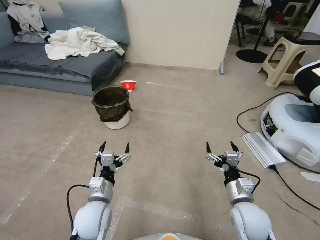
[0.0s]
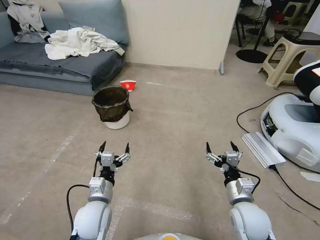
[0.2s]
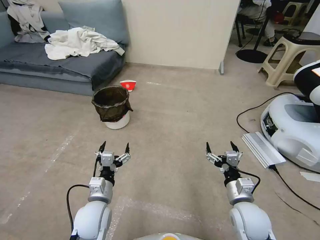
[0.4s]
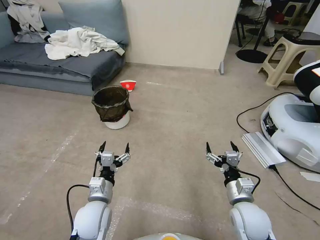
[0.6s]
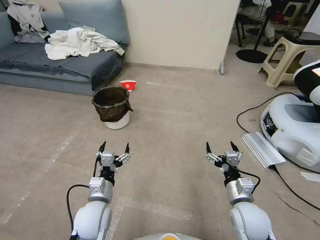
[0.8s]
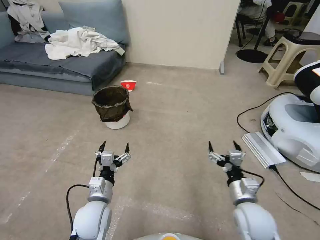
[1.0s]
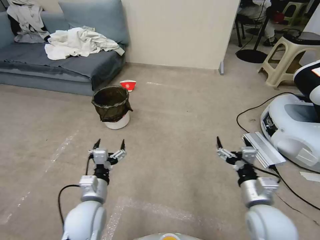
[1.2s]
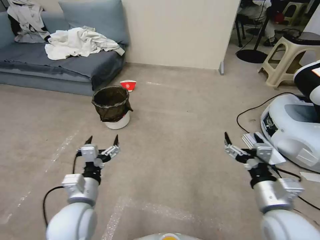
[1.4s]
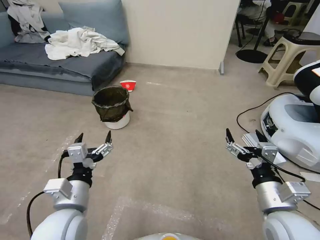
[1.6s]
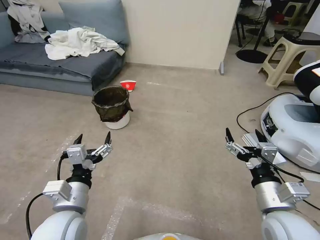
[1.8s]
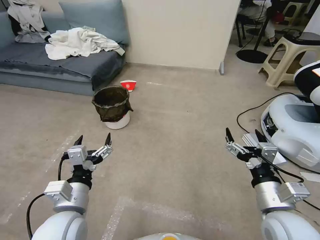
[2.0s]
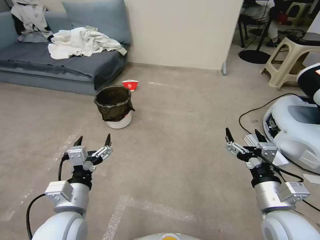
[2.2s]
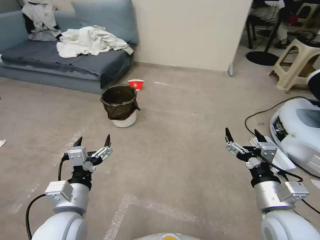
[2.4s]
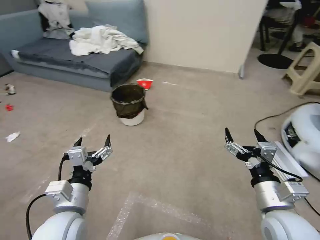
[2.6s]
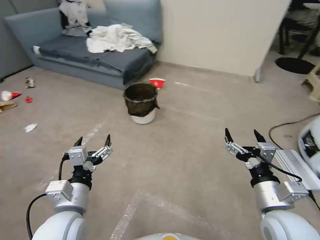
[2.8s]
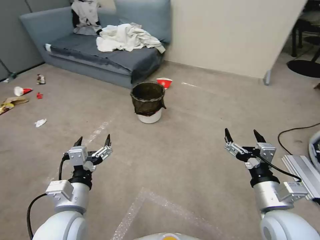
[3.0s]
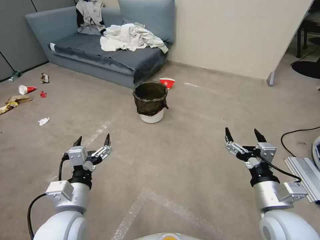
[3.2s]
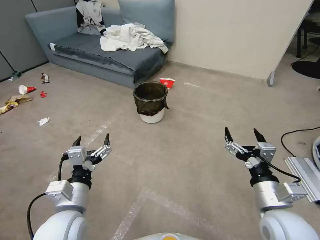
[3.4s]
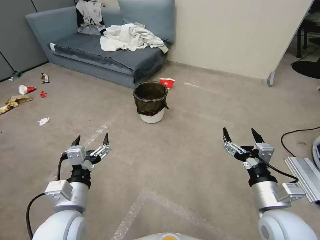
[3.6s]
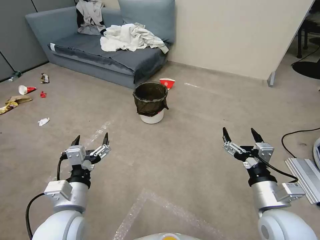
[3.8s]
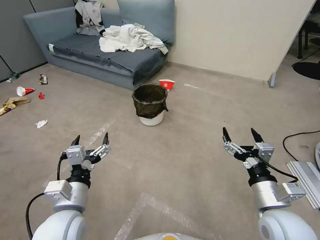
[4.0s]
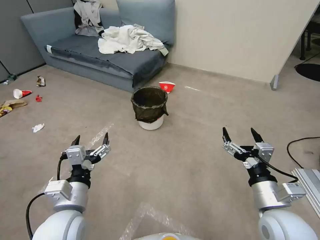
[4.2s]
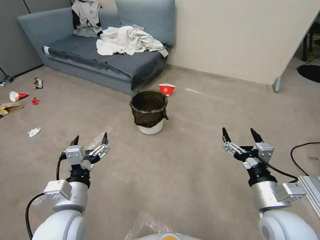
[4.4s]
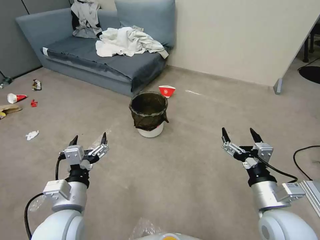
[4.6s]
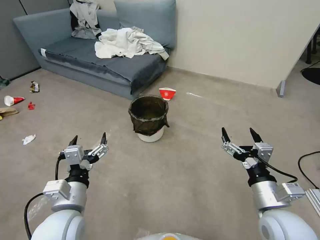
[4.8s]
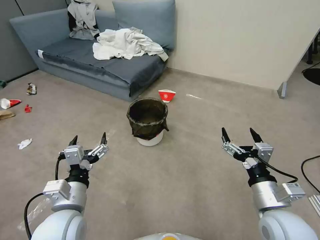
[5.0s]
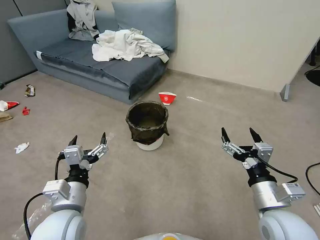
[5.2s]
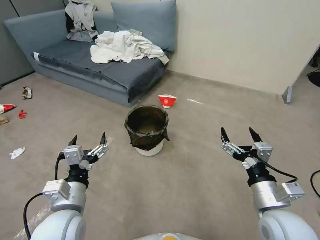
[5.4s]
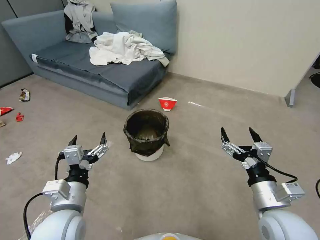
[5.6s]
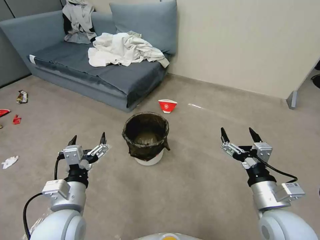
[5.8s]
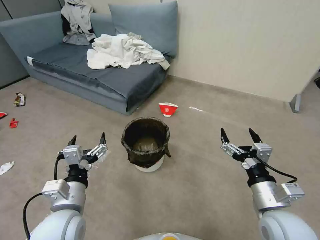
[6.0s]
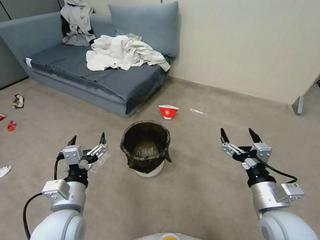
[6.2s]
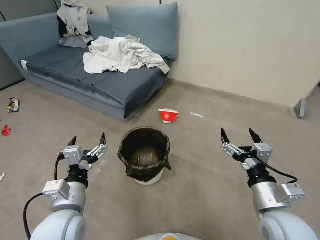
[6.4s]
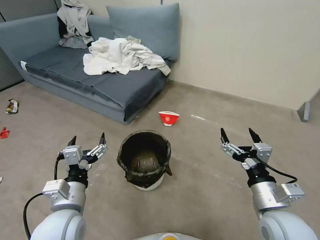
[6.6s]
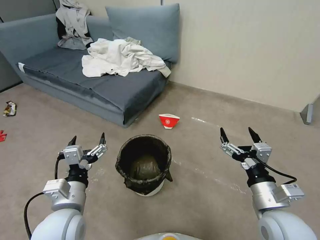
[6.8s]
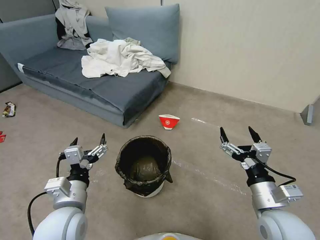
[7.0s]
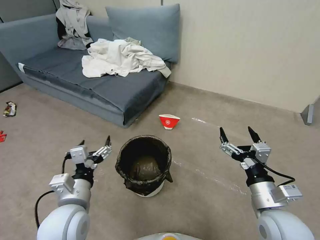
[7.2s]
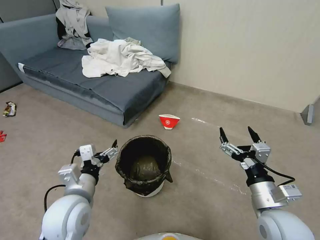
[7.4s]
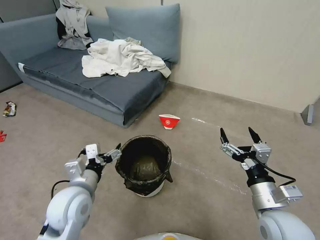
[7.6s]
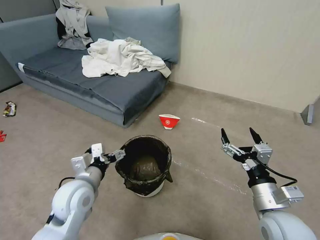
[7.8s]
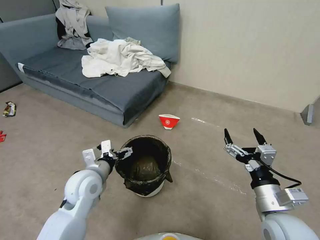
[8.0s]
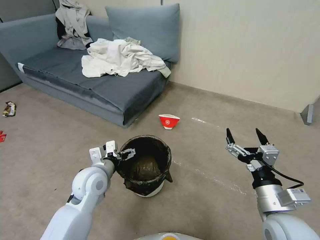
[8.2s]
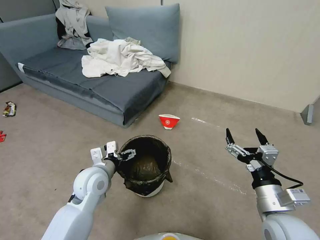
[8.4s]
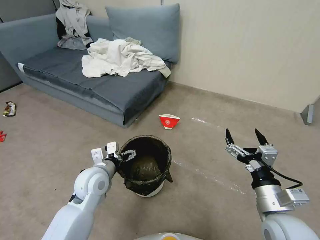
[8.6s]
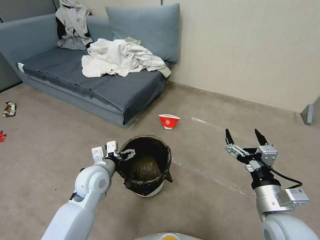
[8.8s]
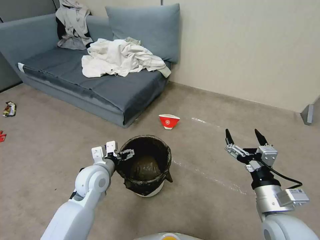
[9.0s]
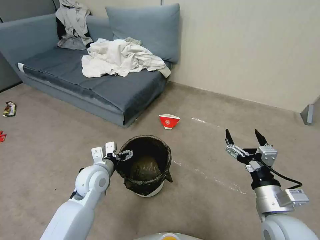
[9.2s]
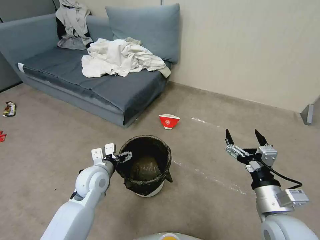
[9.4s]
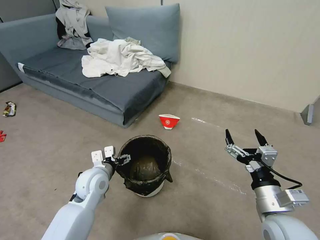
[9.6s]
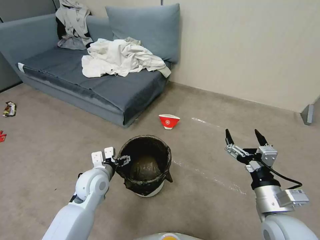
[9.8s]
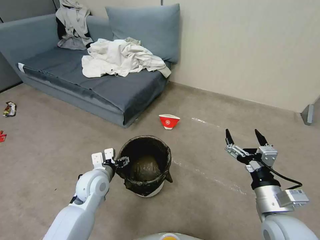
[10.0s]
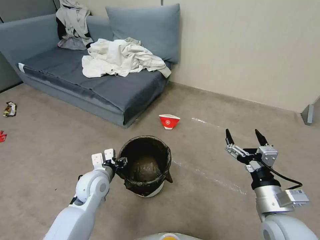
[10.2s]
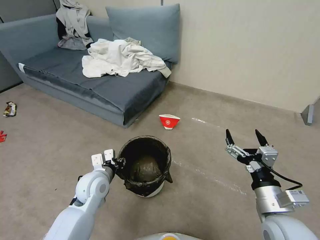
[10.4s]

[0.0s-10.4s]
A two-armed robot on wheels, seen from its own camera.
Task of the whole recording: Pick up the trash can from the floor.
3.0s to 4.4s: The two grippers keep their place.
7.4s to 9.0s: The left gripper is displaced forward and downward by about 10 cm.
9.0s to 10.4s: The left gripper closes up.

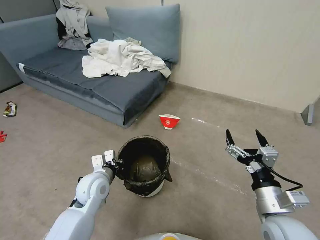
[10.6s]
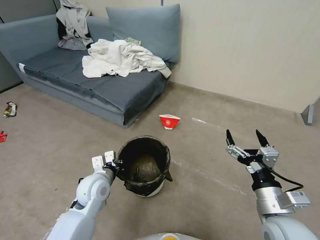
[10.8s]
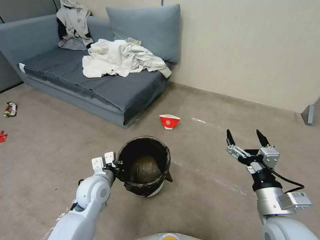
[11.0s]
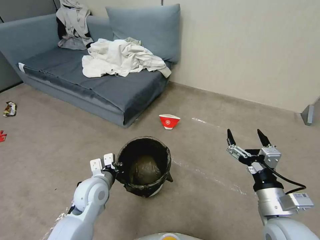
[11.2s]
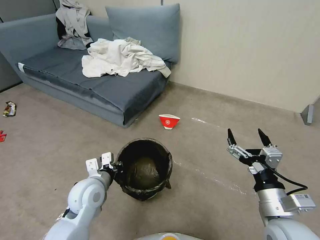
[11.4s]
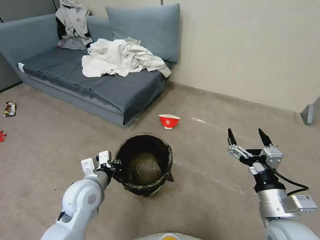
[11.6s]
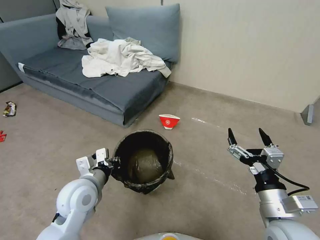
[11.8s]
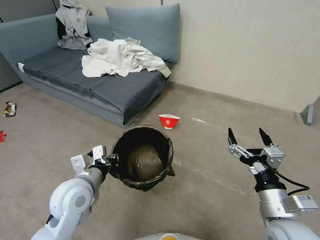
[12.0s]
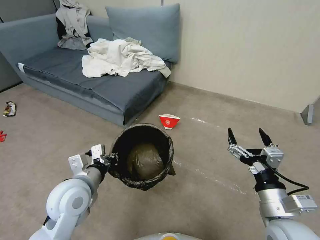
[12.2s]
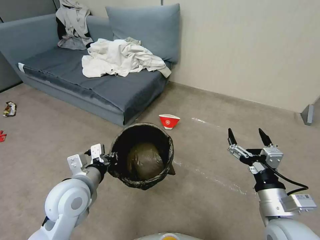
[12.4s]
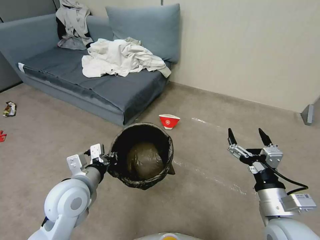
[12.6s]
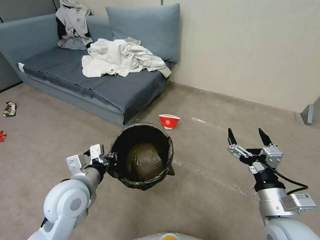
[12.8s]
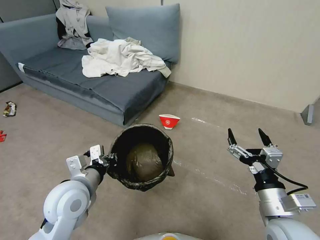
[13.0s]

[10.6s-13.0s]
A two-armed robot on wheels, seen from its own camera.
Task of the whole recording: Pick up the trash can from the floor.
10.6s to 11.8s: The left gripper is displaced upward by some 5 cm.
11.8s to 13.0s: The grippers make only small movements.
